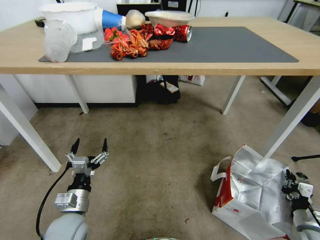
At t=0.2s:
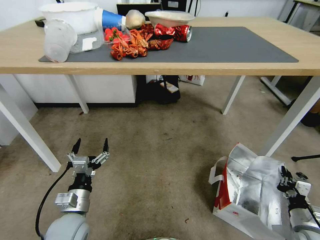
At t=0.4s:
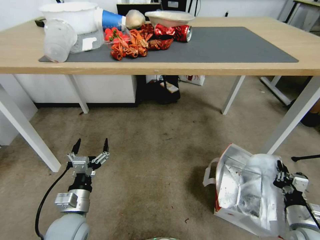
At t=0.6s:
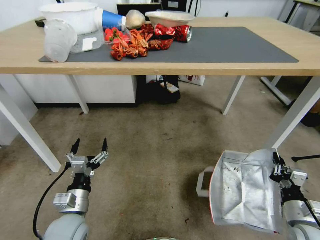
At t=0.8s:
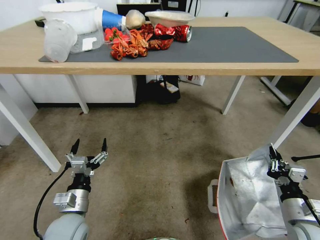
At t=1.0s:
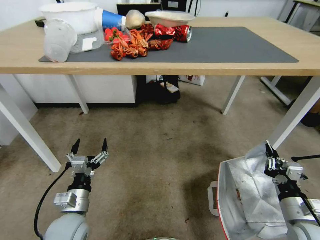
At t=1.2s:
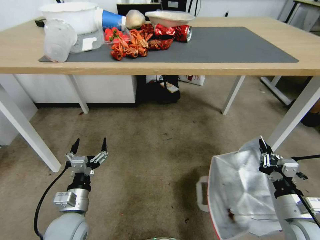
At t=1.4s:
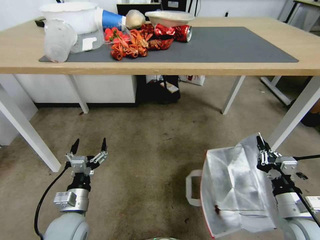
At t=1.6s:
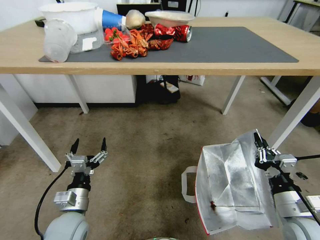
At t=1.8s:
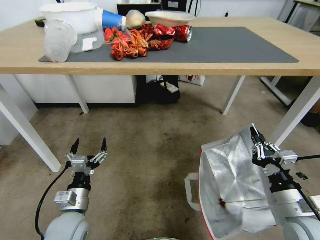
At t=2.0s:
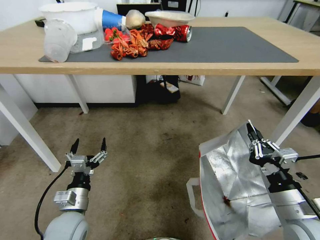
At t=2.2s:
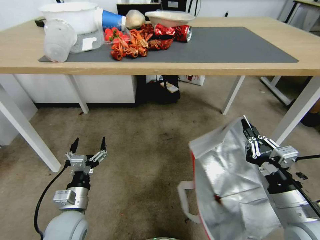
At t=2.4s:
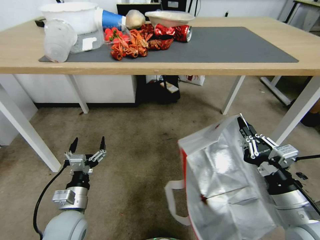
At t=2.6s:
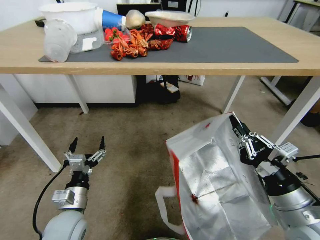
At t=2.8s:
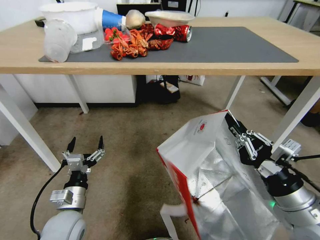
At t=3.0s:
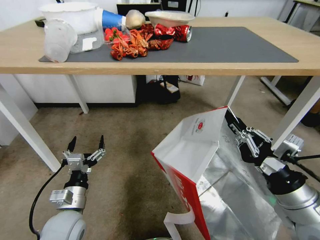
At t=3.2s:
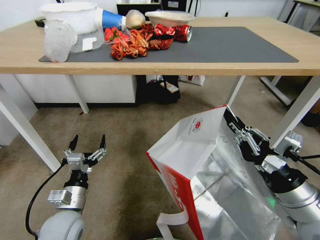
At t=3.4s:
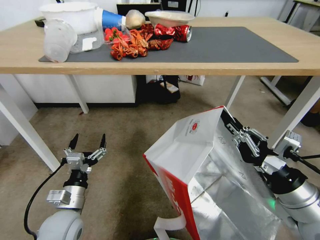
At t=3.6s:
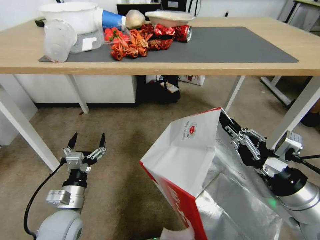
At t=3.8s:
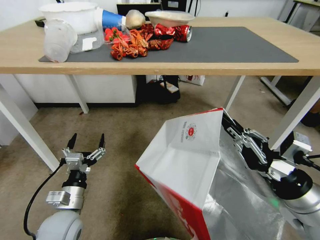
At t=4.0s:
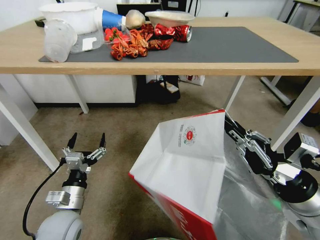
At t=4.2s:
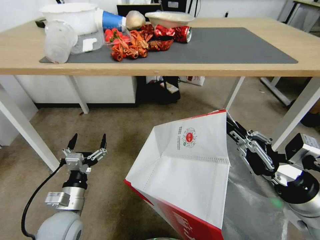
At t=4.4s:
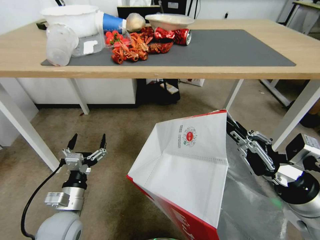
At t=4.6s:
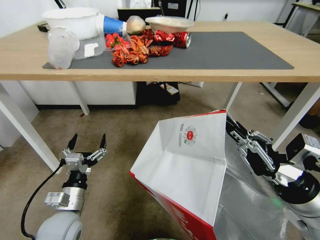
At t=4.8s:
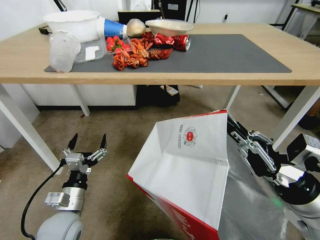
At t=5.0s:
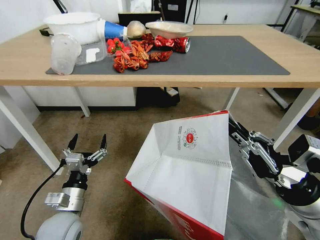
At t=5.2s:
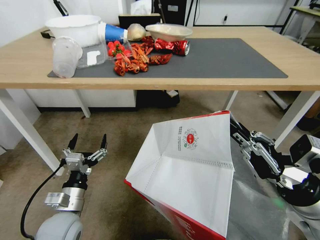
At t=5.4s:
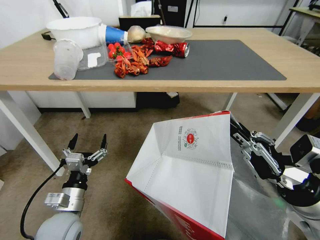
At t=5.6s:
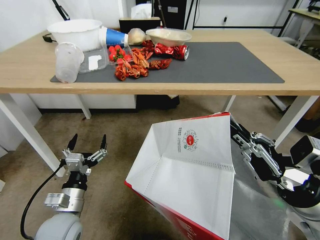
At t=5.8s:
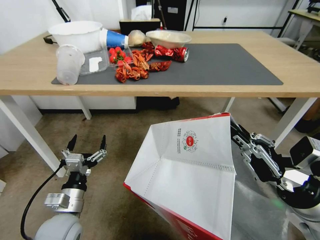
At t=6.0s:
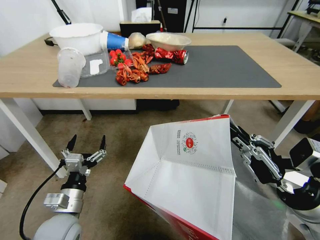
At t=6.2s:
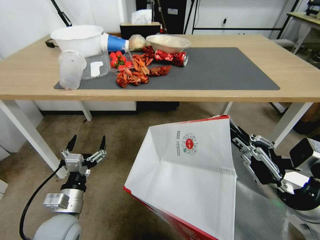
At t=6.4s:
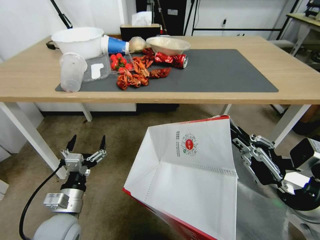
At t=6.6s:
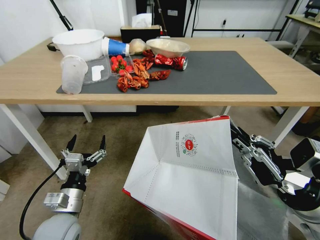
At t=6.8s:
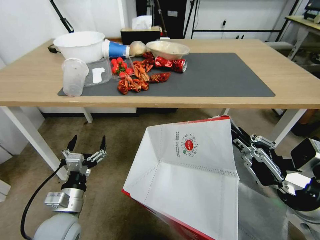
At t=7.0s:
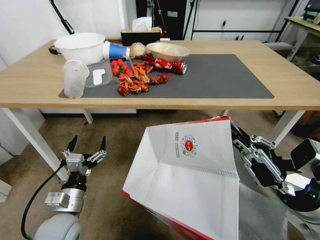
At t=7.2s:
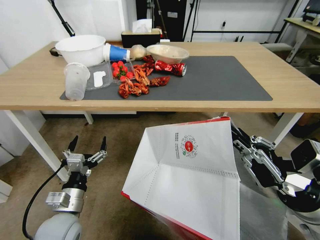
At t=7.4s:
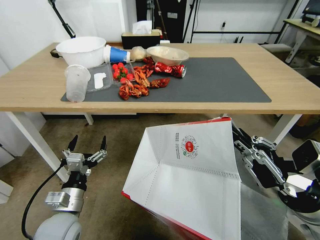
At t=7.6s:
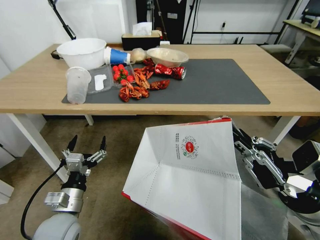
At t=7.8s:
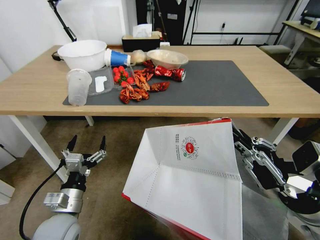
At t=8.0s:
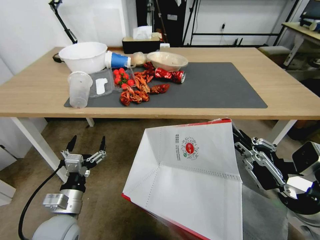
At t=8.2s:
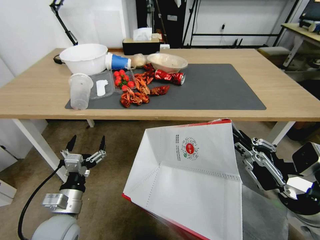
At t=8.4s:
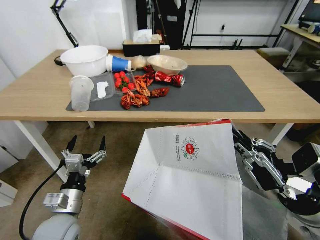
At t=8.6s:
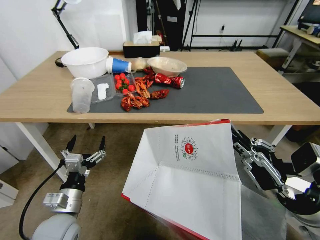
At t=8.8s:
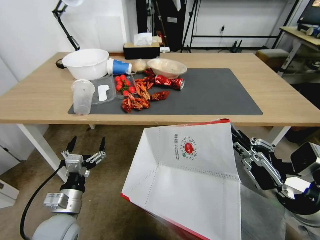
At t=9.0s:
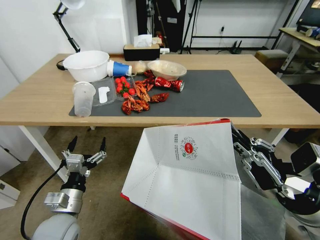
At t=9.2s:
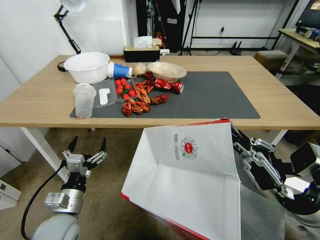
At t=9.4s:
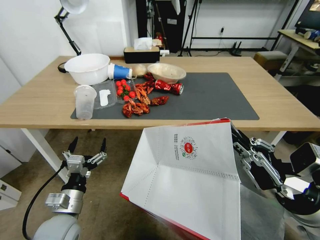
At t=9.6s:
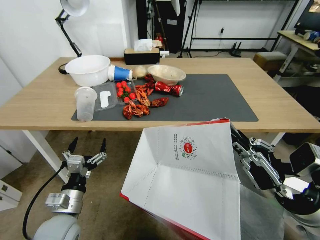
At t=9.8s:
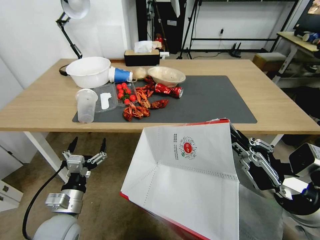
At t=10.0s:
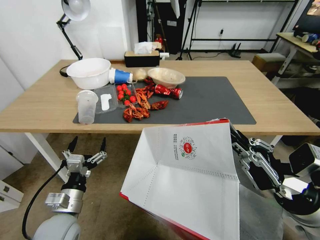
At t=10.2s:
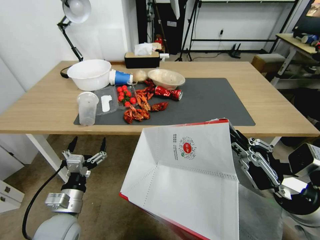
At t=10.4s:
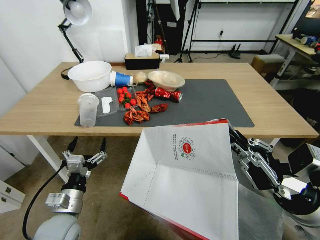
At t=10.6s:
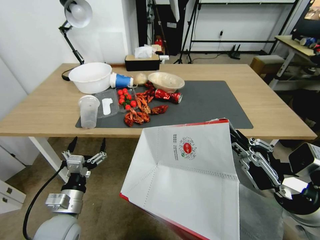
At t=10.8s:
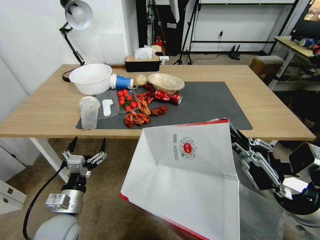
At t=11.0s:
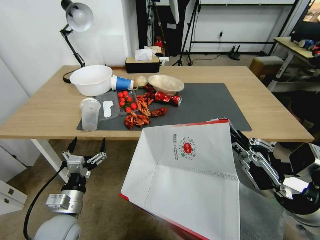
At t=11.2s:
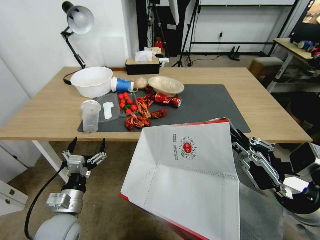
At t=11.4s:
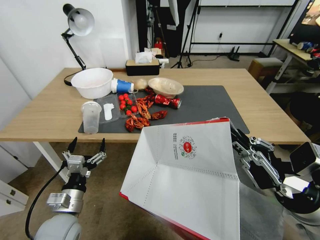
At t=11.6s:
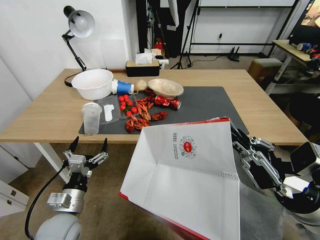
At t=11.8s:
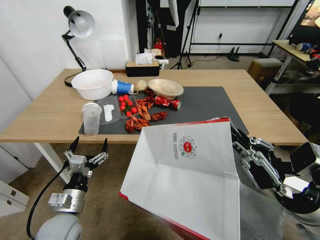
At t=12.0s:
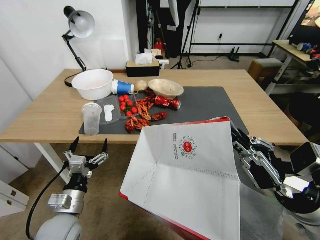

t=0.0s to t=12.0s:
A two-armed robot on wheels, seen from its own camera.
Task of the whole recording: Pick up the food delivery bag from the floor and place it on the table.
t=0.0s to t=1.6s: The right gripper goes roughly 20 cm upward and to the left.
t=1.6s to t=3.0s: The right gripper moves upward, some 10 cm.

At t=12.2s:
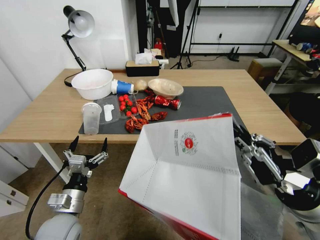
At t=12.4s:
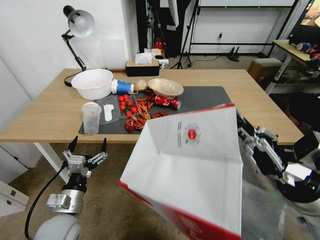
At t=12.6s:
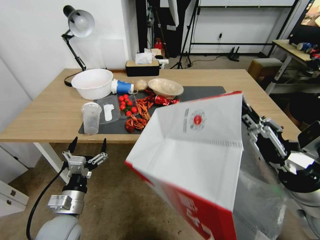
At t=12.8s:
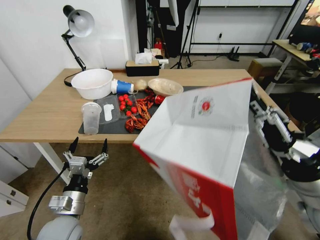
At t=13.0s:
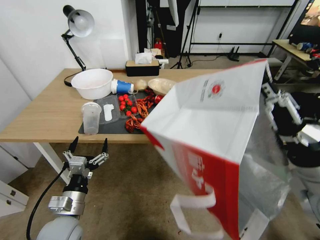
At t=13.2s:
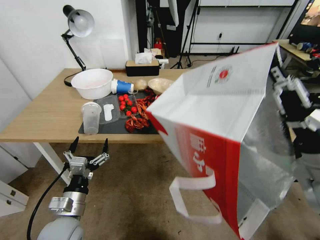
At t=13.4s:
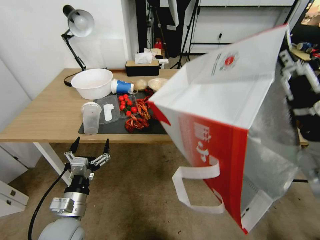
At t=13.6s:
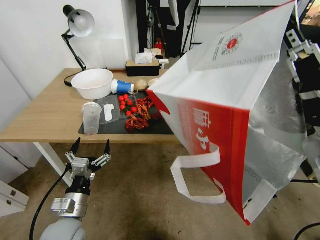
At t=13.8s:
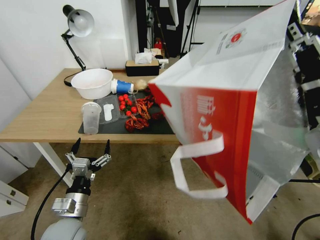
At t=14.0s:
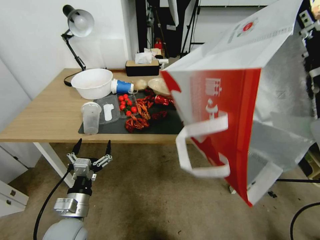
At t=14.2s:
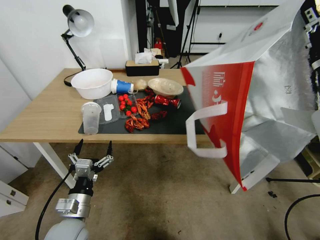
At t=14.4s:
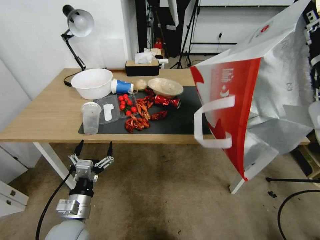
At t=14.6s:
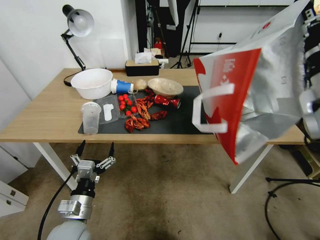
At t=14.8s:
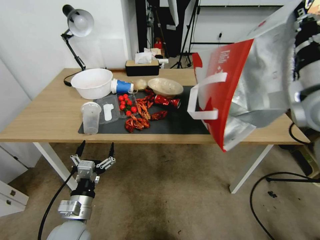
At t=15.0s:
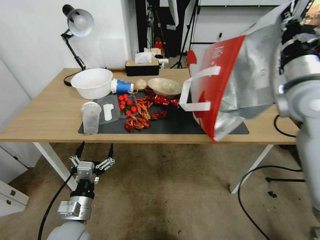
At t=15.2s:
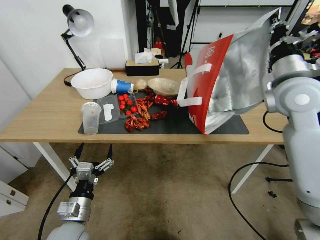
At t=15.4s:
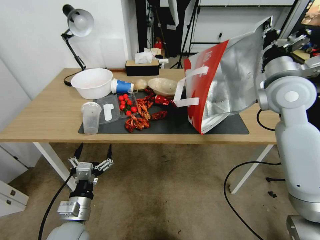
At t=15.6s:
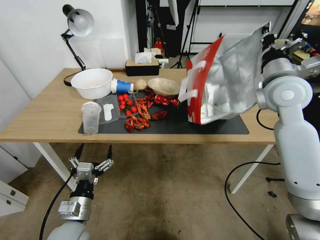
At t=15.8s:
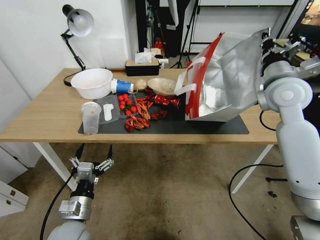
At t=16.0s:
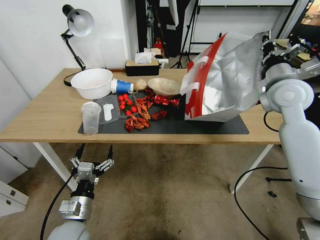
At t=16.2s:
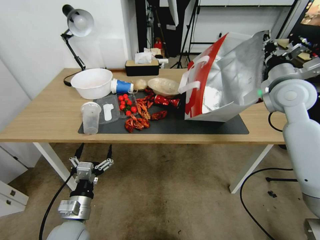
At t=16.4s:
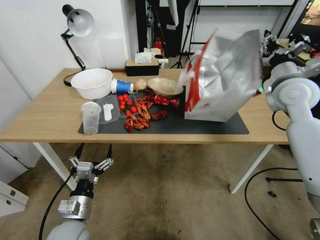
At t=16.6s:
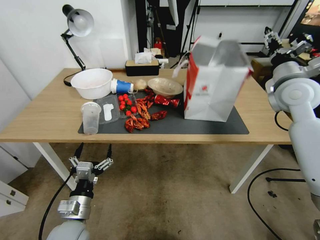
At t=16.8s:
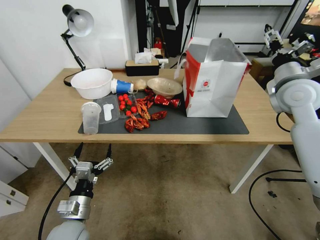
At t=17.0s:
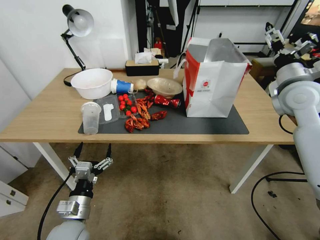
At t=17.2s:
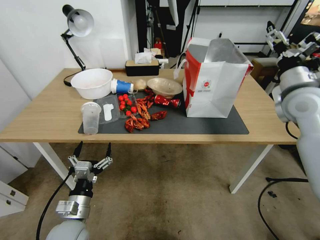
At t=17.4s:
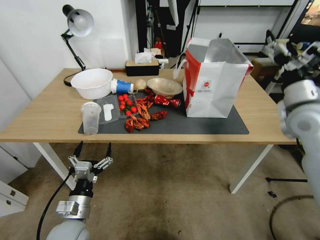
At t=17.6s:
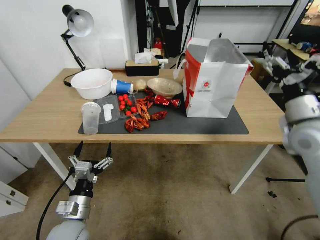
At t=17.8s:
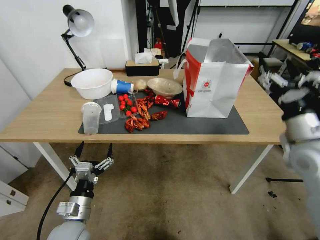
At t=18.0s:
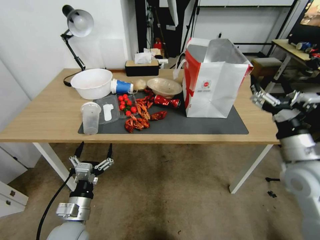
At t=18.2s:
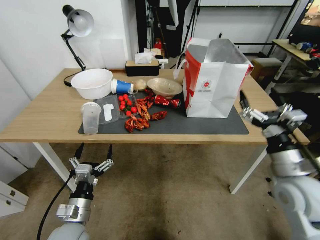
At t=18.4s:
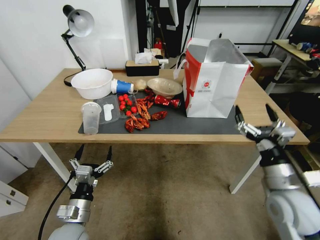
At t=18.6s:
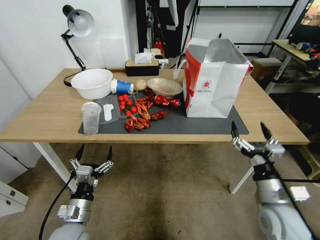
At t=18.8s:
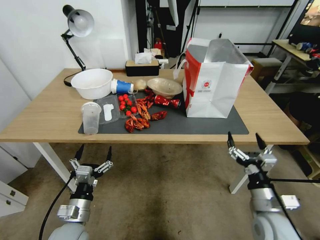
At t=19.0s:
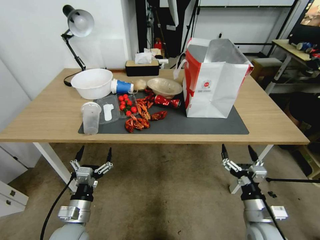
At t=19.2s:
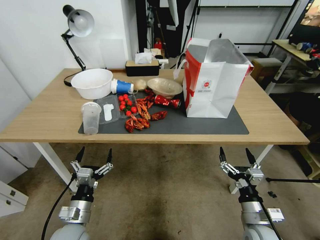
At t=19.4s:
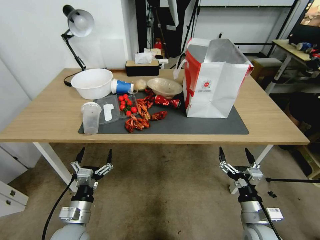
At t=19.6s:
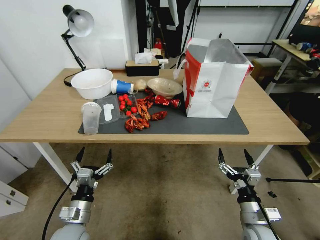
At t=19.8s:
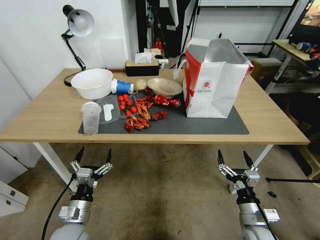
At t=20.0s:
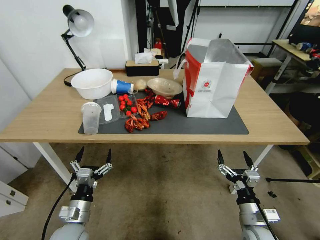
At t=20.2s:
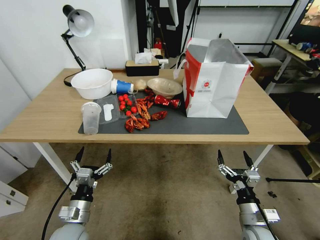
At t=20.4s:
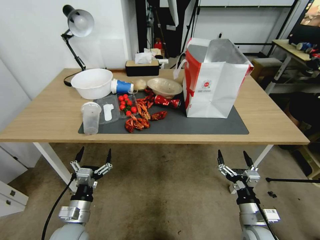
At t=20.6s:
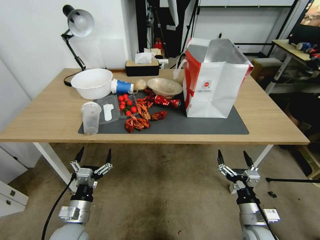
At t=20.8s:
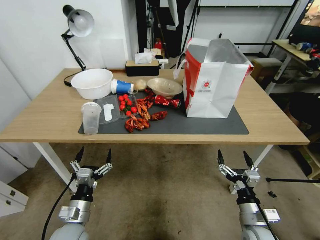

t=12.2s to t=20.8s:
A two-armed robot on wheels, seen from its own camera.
Task of the whole recording: Pick up the food delivery bag from the floor and place it on the table.
t=12.2s to t=13.6s: The right gripper heads upward and forward, covering roughly 10 cm.
t=13.6s to t=15.0s: The right gripper goes some 15 cm forward.
t=15.0s to t=16.6s: The right gripper goes about 5 cm forward, and opens up.
t=16.6s to t=18.0s: The right gripper moves backward and downward, some 20 cm, and opens its fingers.
t=18.0s to t=19.4s: The right gripper goes some 25 cm downward and backward.
t=19.4s to t=20.8s: The two grippers keep their place.
